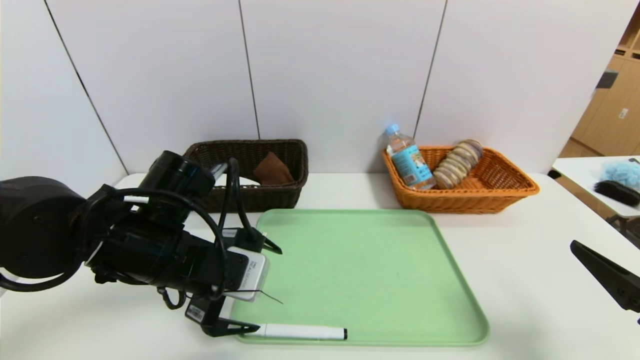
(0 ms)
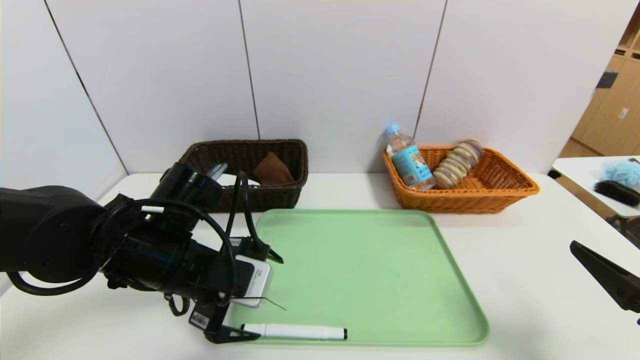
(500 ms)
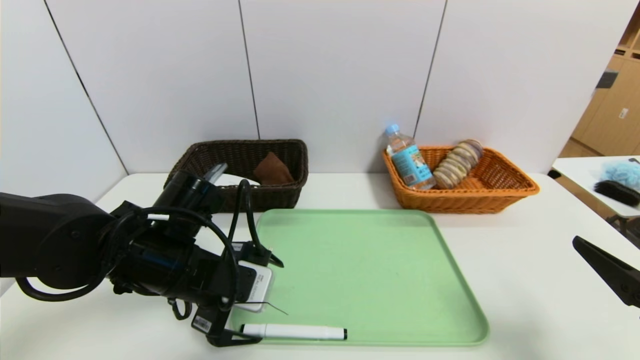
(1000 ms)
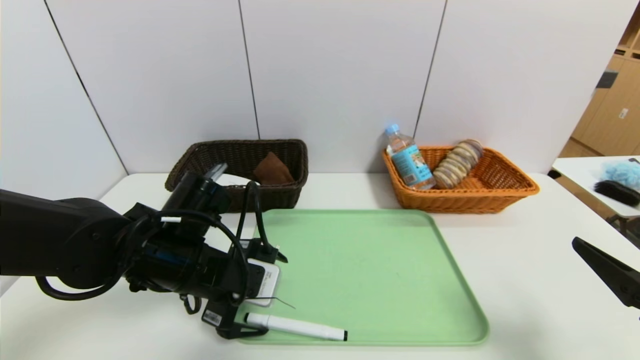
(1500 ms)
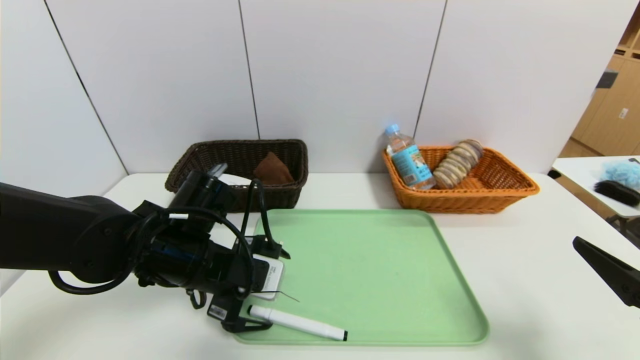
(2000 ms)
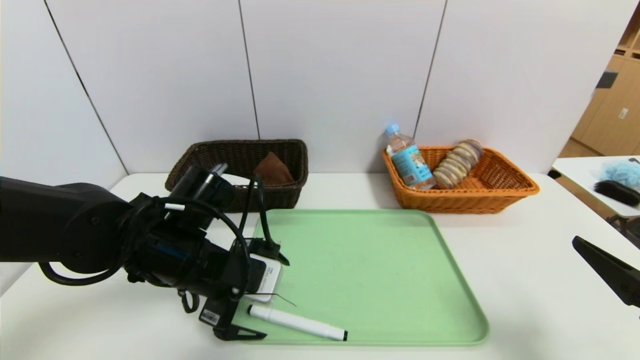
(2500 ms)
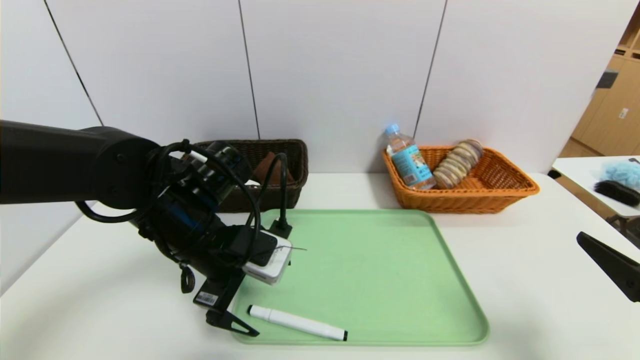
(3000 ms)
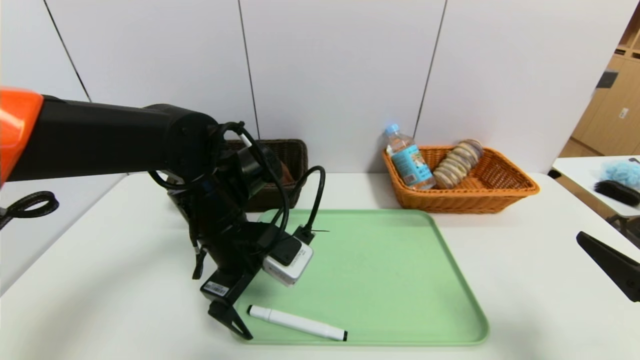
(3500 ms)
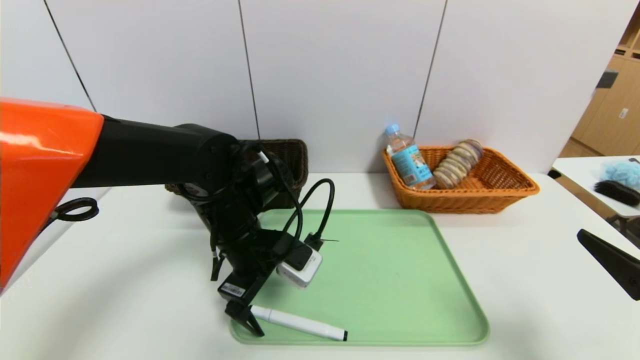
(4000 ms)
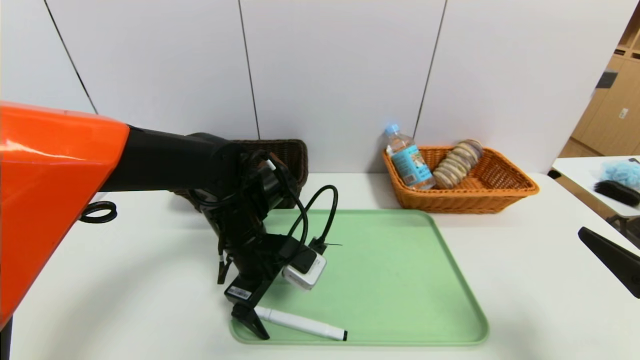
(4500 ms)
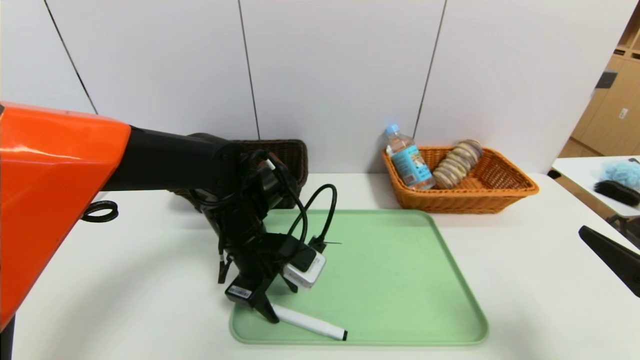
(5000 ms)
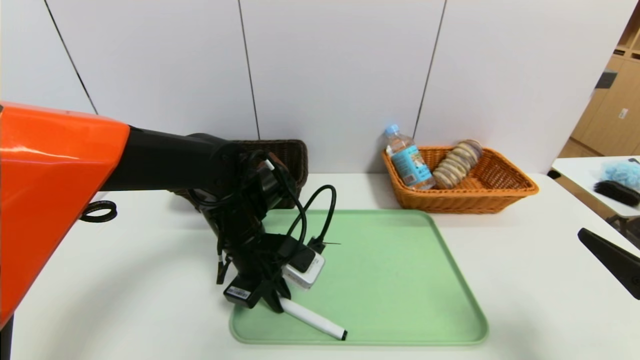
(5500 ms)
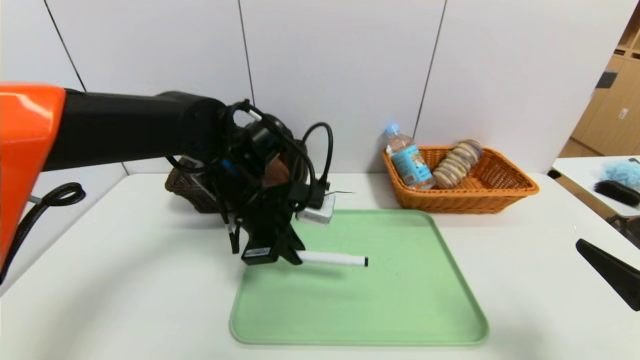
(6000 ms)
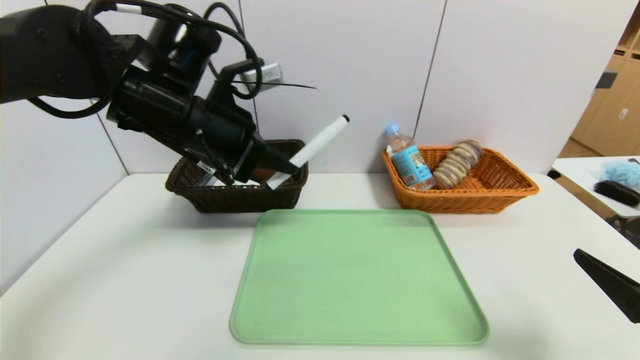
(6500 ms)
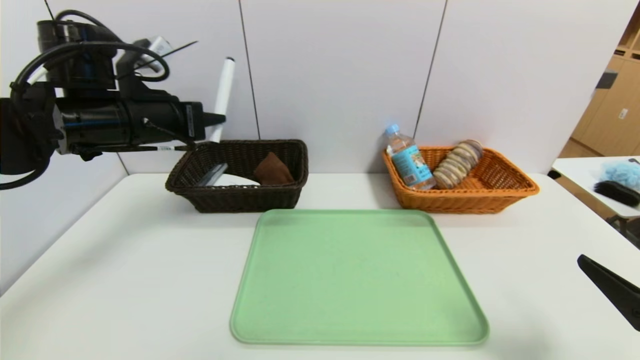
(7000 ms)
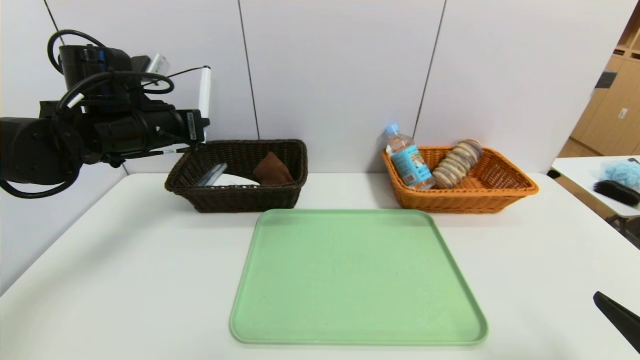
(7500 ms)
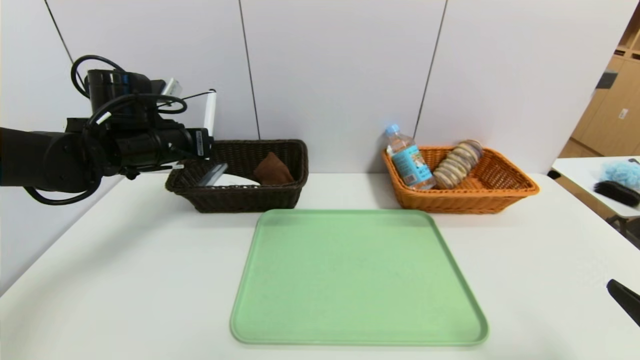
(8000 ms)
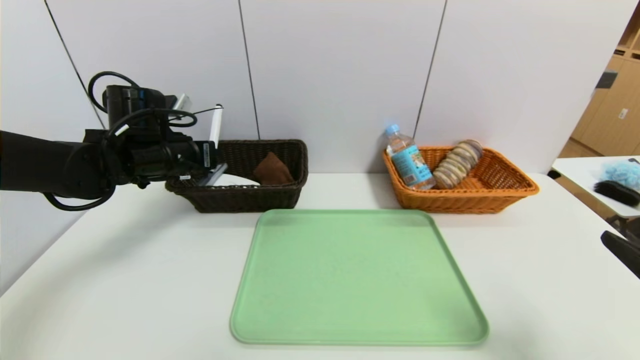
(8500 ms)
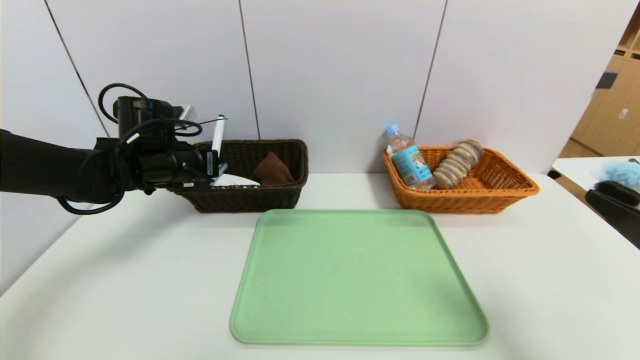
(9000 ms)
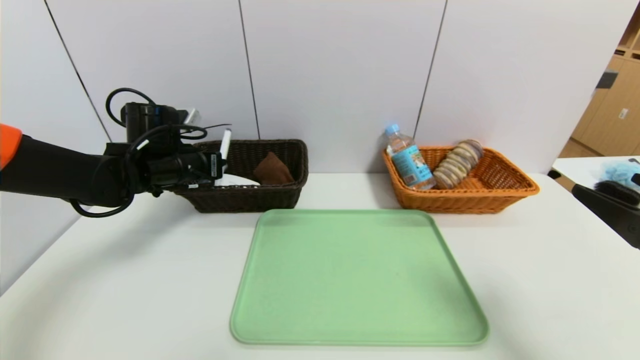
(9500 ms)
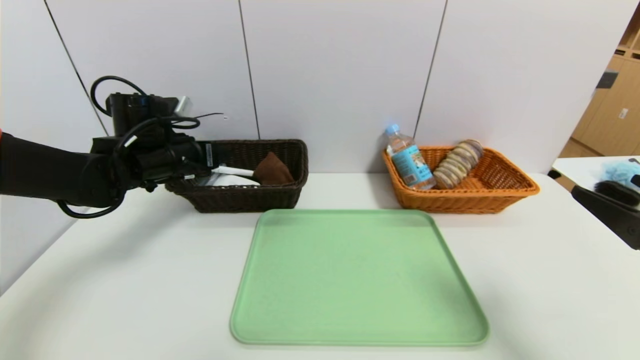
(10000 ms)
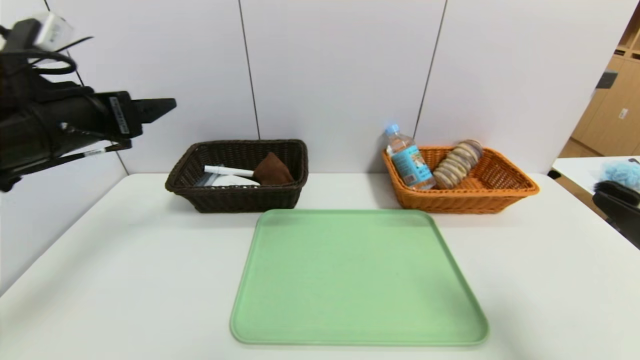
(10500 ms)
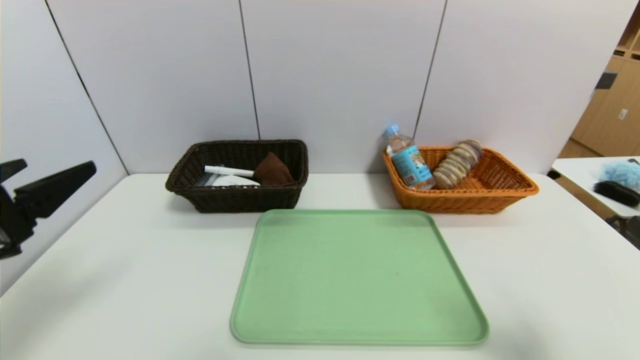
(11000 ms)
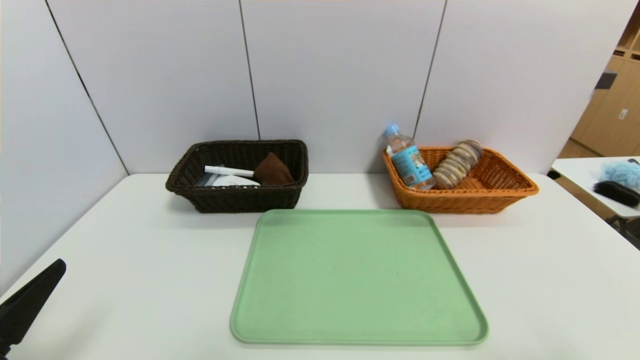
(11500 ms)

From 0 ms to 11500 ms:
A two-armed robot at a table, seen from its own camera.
Task of the whole recording: place the food in the right basket with the right gripper, and place the non food items in the left basket with the left gripper.
Step, from 0 ms to 10000 ms: Grasp the blue marker and put it in the left basket.
From 0 ms to 2000 ms: The grippers stay close to where they were, moving slightly.
From 2000 ms to 4000 ms: The left gripper heads to the right, covering some 5 cm.
From 4000 ms to 6000 ms: The left gripper closes up.
From 6000 ms to 7500 ms: The left gripper shifts approximately 15 cm to the left.
From 7500 ms to 9500 ms: The right gripper shifts roughly 10 cm upward and forward. Meanwhile the left gripper is displaced downward by approximately 10 cm.
From 9500 ms to 11500 ms: The left gripper shifts roughly 35 cm backward, and opens, while the right gripper goes approximately 10 cm backward and downward.

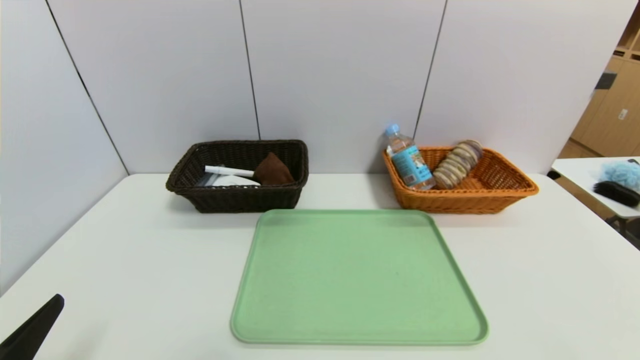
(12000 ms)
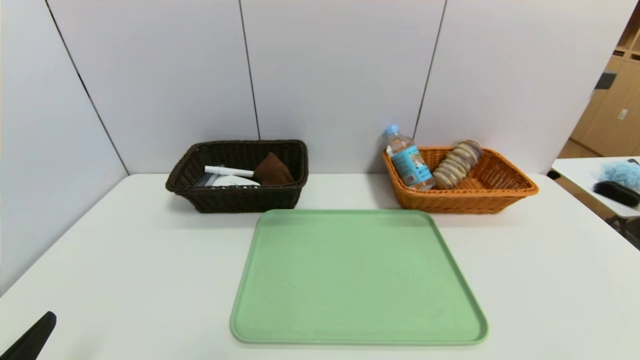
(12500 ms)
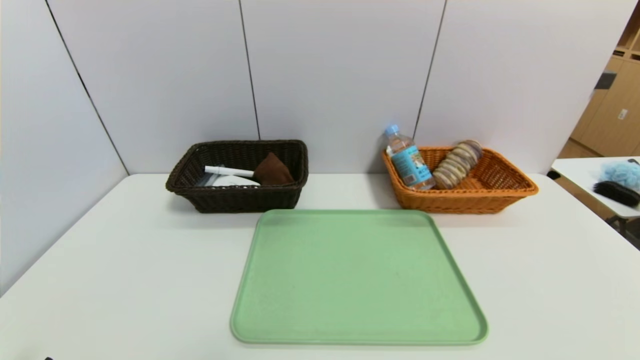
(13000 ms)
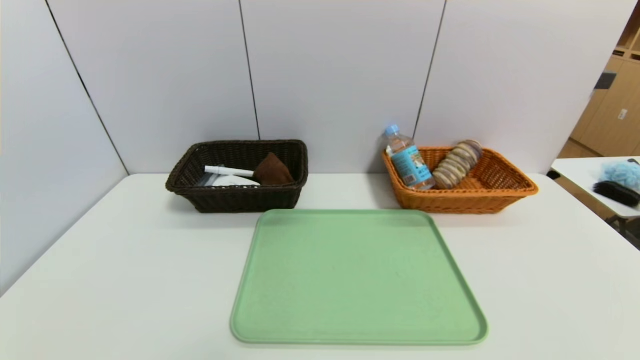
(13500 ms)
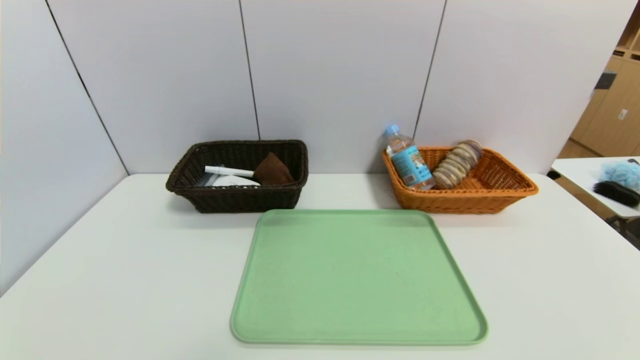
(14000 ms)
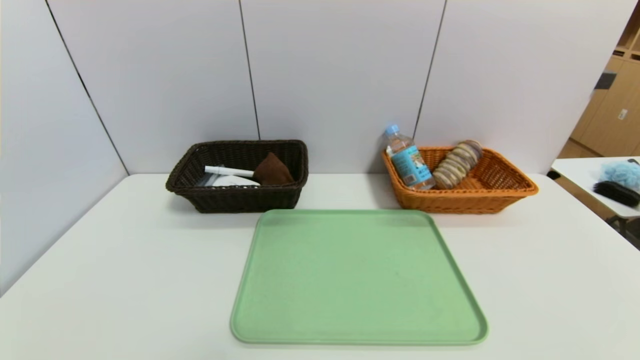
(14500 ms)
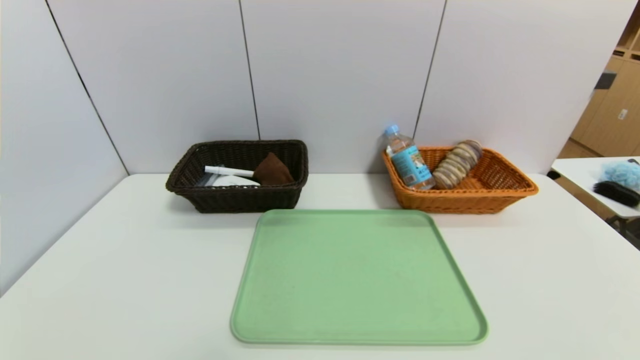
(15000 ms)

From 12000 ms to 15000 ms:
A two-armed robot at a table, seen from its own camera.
Task of the whole recording: place the food in the right basket with the right gripper, and place the non food items in the left basket with the left gripper.
From 12000 ms to 13500 ms: The left gripper heads downward, covering approximately 5 cm.
